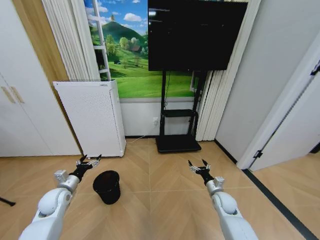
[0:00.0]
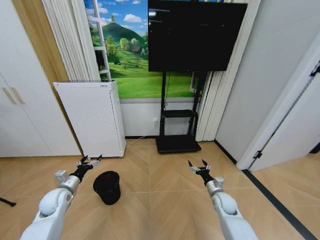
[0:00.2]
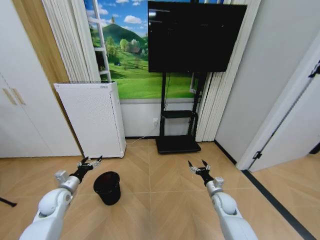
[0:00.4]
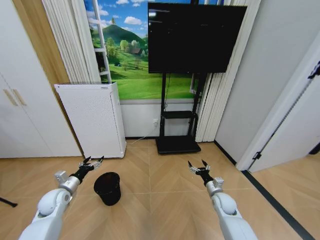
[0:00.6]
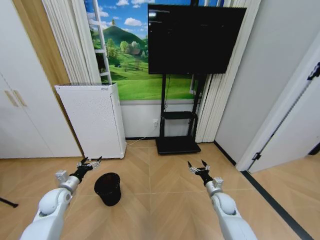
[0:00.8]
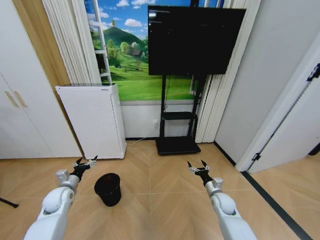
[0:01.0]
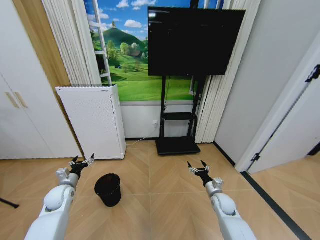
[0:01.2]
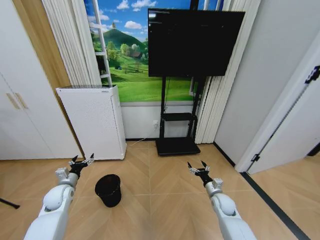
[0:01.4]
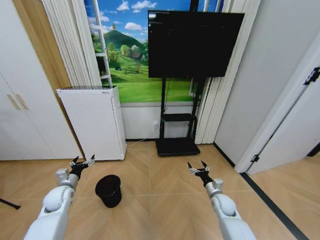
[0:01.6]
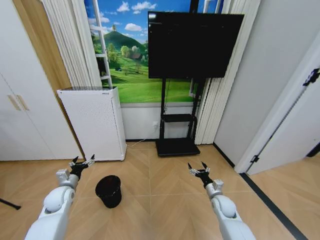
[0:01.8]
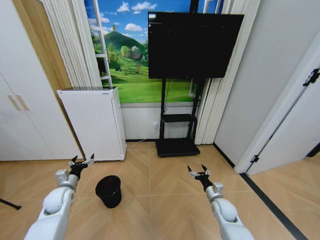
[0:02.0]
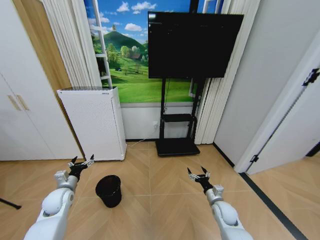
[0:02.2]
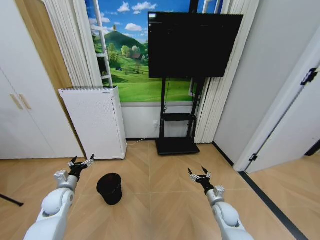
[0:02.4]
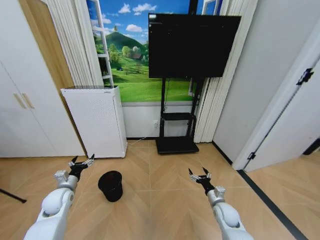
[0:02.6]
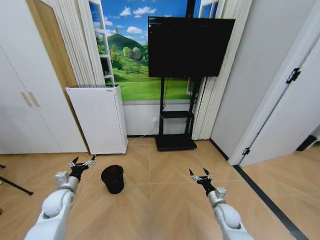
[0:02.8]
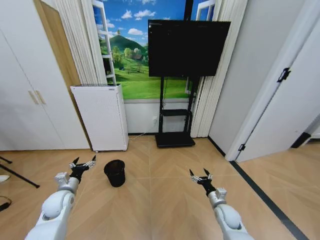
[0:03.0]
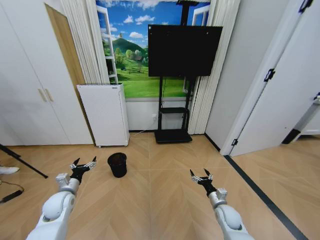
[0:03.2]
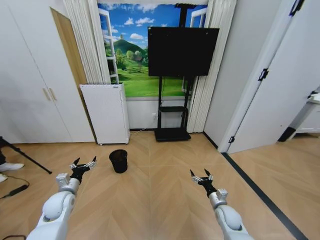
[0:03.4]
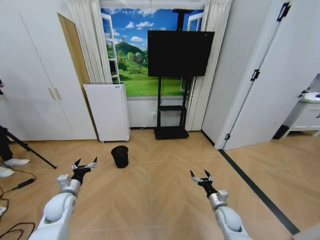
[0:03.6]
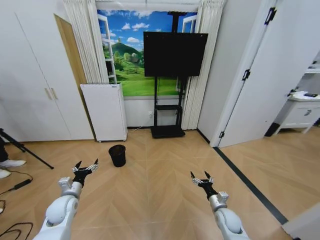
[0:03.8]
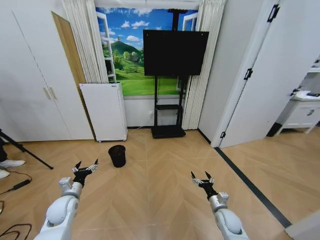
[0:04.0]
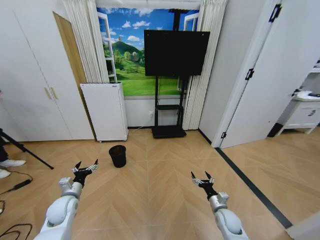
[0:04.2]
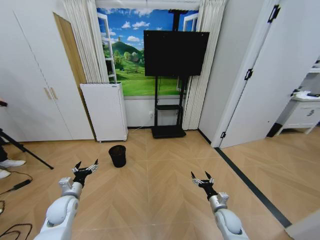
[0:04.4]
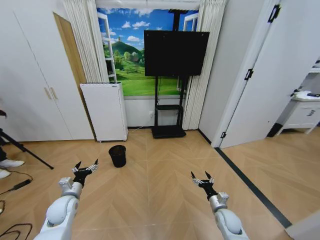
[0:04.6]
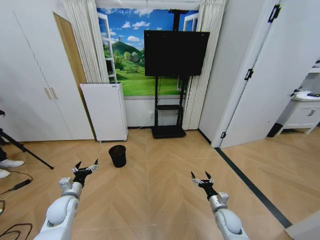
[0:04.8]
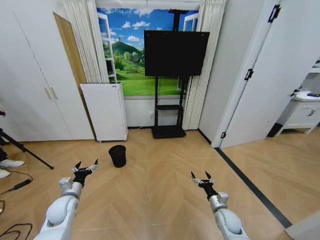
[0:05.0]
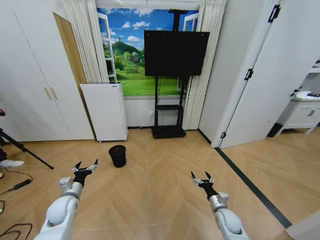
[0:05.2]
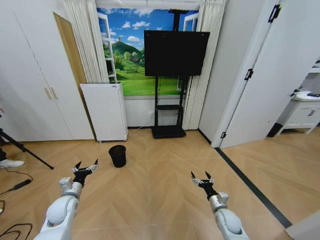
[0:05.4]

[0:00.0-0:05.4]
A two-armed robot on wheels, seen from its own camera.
Task of the whole recording: Pick up the trash bin and place the garbage on the floor into it.
0:00.0 to 0:01.4: The grippers stay close to where they were, moving slightly.
0:04.0 to 0:05.4: Both grippers stay put.
